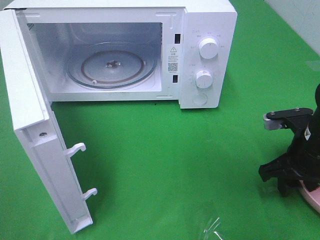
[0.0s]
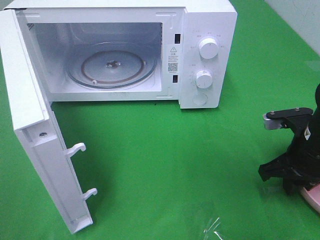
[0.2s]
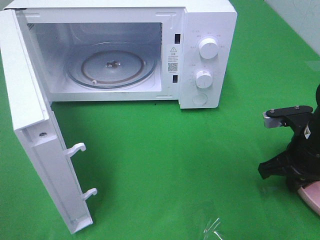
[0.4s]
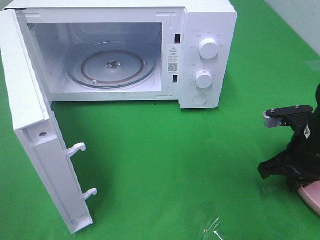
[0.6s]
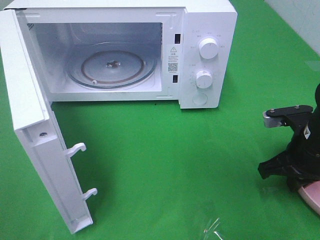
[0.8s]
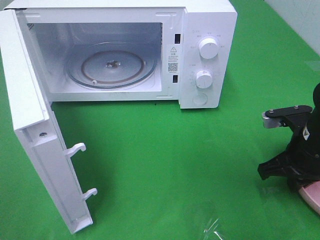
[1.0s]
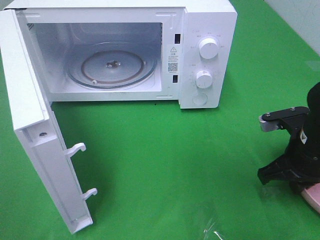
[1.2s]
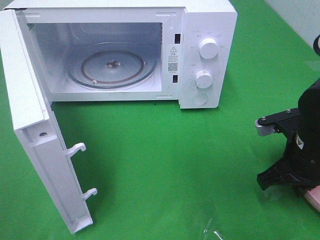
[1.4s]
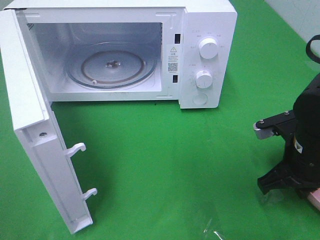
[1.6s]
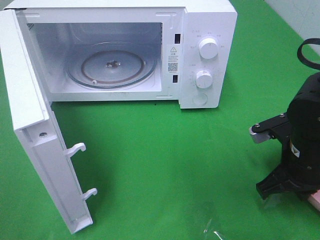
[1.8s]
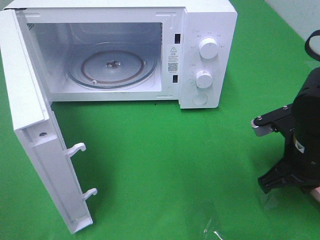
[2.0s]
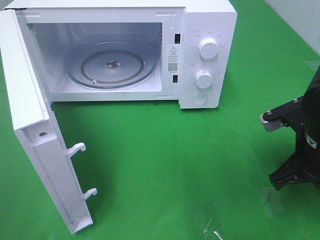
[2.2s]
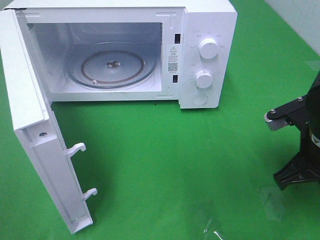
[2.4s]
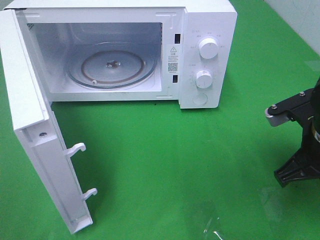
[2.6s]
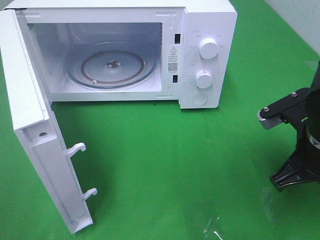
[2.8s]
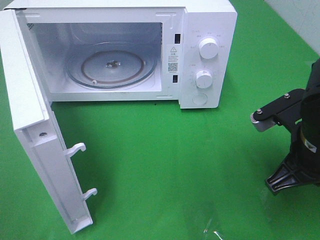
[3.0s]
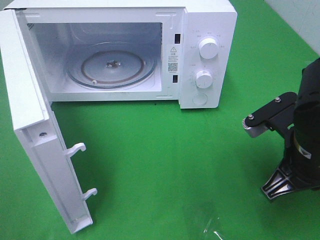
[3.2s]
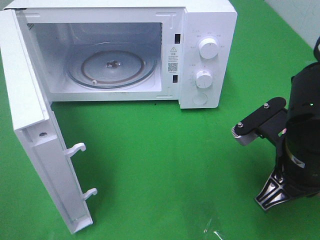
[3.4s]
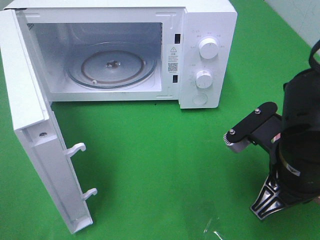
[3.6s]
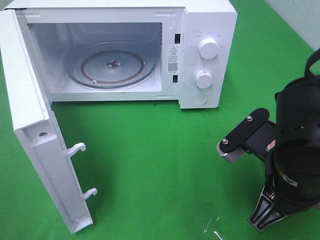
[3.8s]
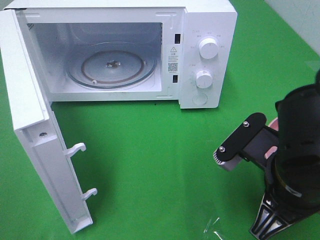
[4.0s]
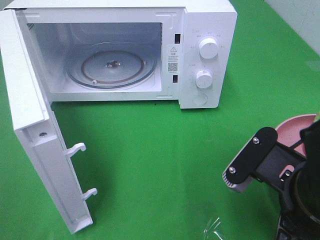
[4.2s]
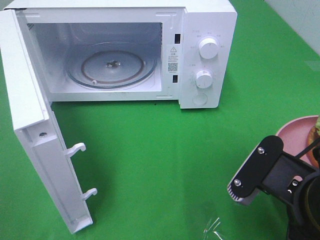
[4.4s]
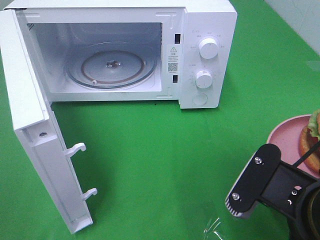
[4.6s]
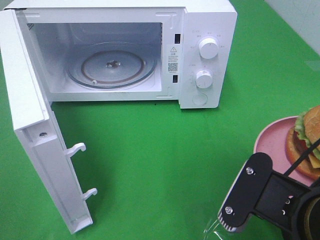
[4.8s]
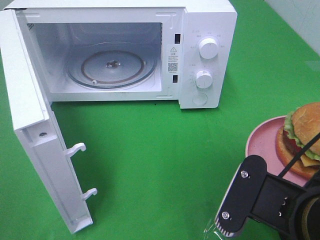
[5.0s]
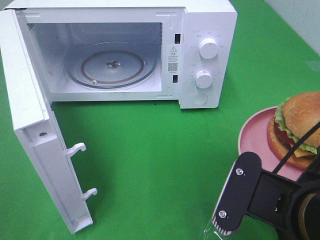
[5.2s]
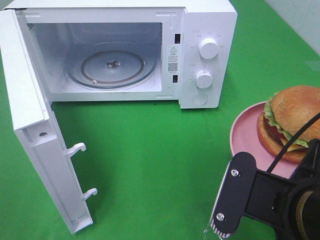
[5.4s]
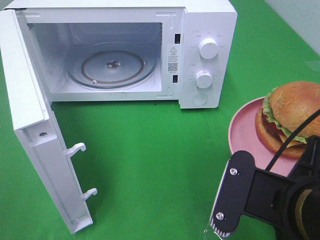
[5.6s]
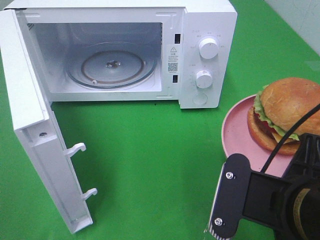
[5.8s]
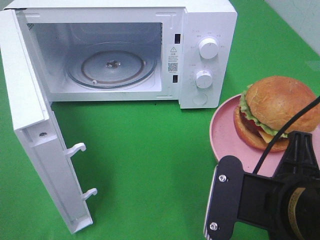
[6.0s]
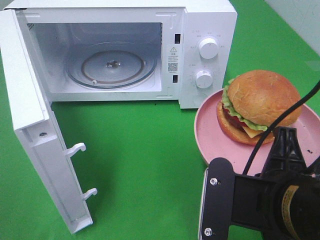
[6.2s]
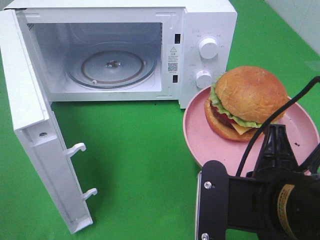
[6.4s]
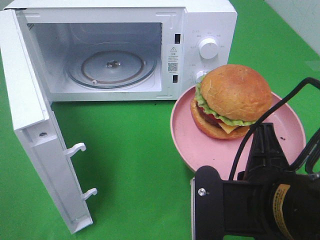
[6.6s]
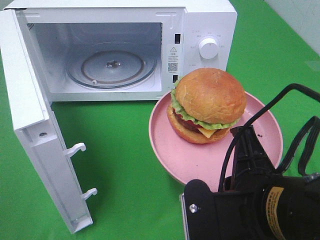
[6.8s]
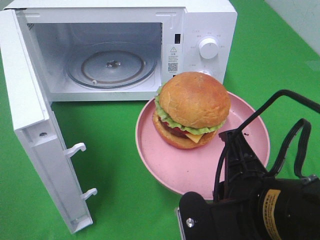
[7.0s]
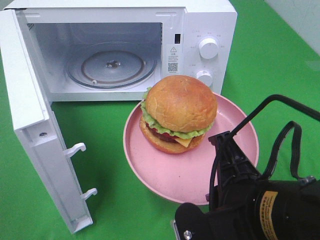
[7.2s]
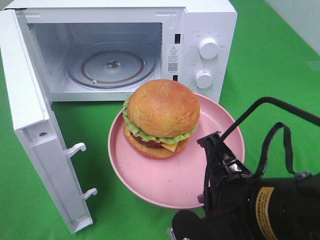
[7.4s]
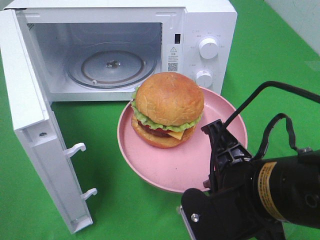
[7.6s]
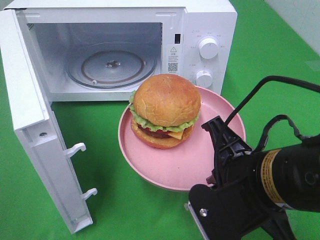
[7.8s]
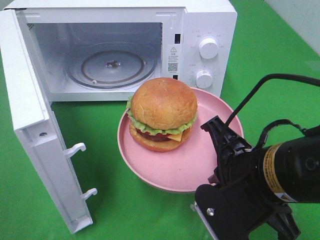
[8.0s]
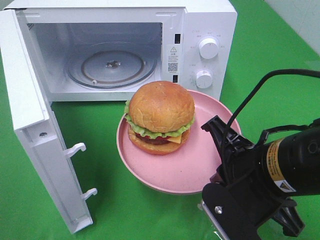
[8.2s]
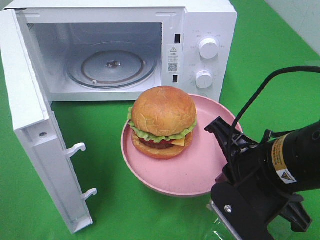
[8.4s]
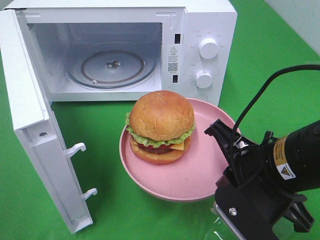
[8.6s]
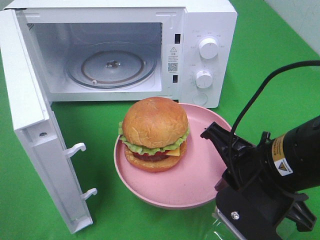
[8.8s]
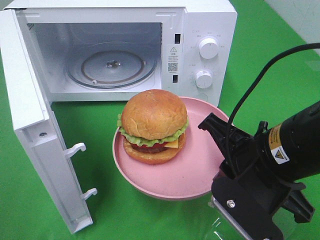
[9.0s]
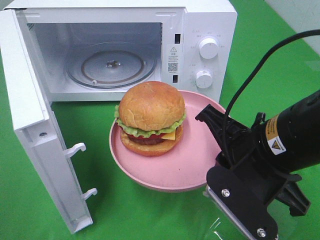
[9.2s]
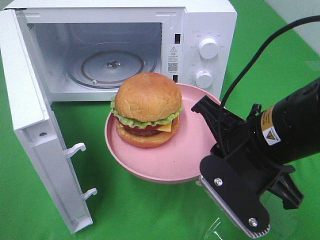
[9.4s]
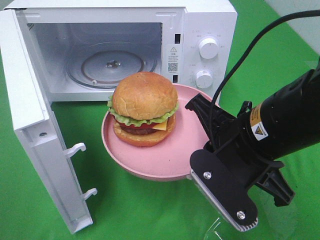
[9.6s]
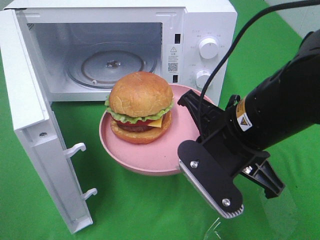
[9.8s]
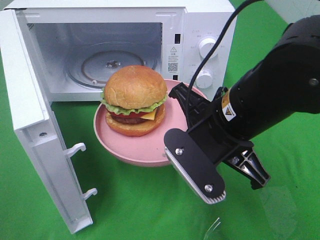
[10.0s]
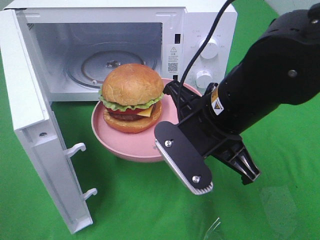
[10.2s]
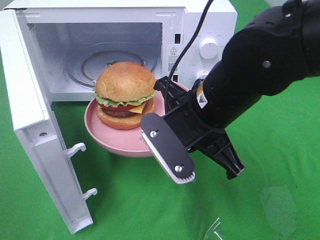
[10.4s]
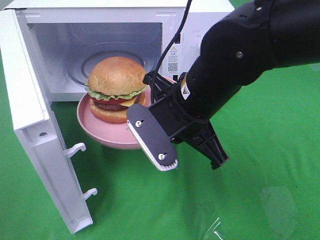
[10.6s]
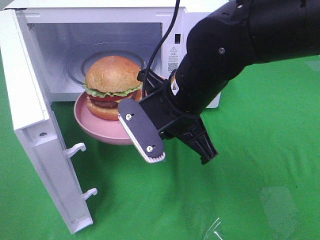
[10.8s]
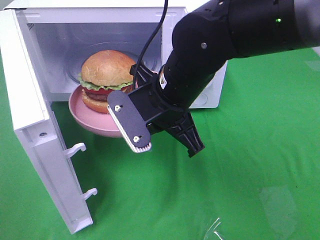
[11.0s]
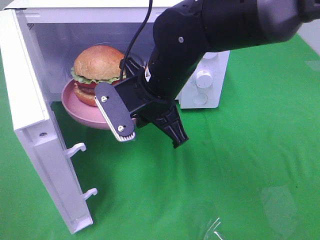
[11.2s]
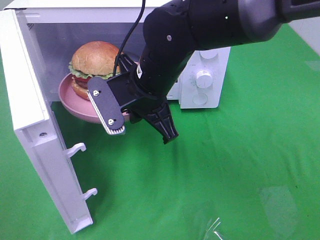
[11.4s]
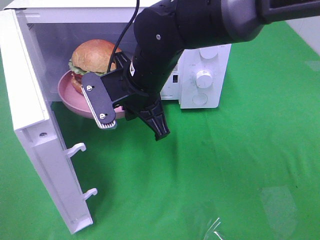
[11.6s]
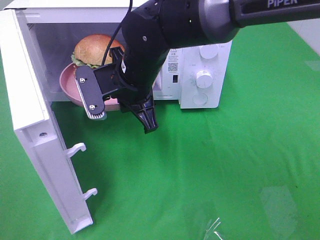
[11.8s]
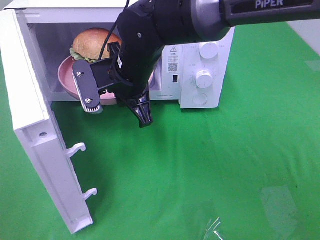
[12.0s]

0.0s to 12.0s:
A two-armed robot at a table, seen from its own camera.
Task of the whole recording: Heat the burger.
0.0s to 1.6s: The right gripper closes up.
1.6s to 3.0s: The right gripper travels upward by roughly 5 cm.
3.0s to 4.4s: The right gripper is displaced backward by roughly 10 cm.
7.6s to 9.0s: The right gripper changes place by some 5 cm.
9.0s to 10.4s: The right gripper goes roughly 10 cm to the left and forward.
10.4s to 12.0s: The right gripper goes about 15 cm forward and to the left.

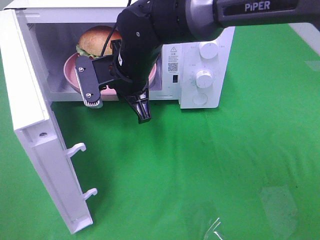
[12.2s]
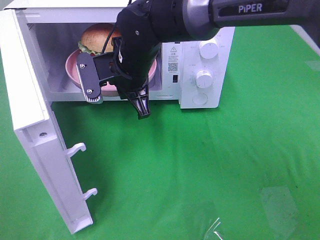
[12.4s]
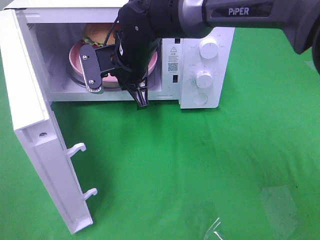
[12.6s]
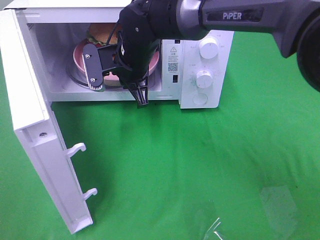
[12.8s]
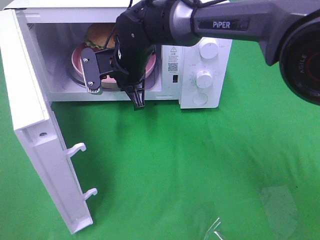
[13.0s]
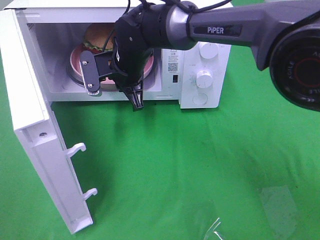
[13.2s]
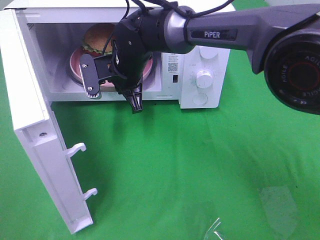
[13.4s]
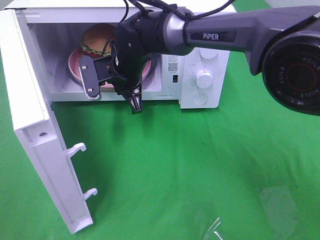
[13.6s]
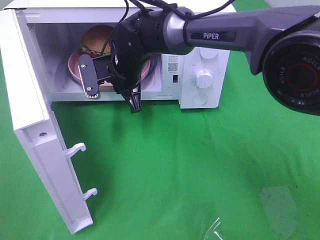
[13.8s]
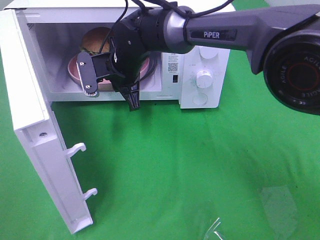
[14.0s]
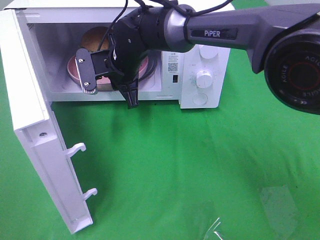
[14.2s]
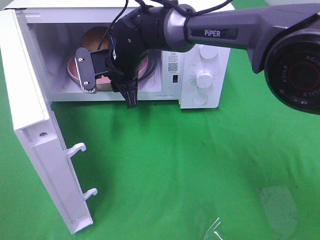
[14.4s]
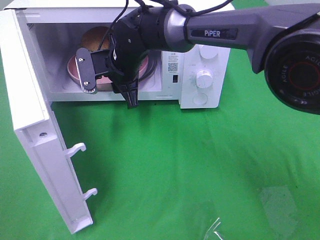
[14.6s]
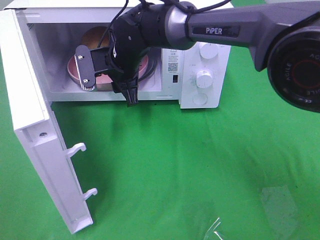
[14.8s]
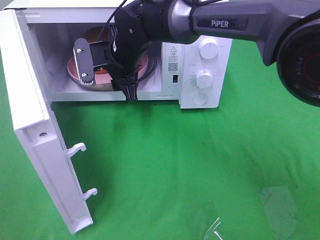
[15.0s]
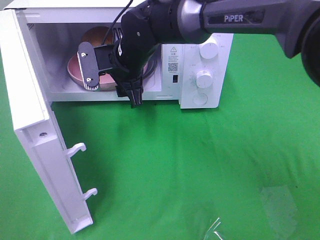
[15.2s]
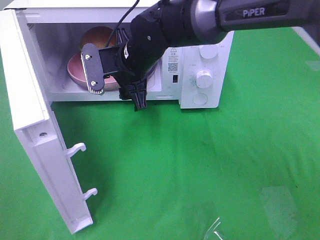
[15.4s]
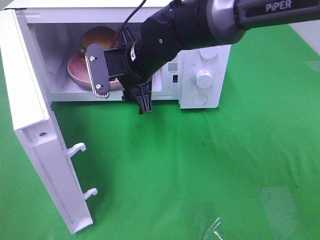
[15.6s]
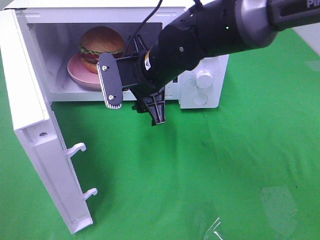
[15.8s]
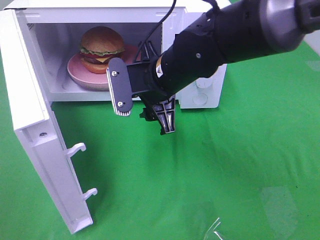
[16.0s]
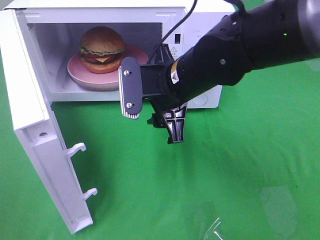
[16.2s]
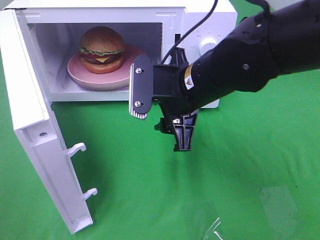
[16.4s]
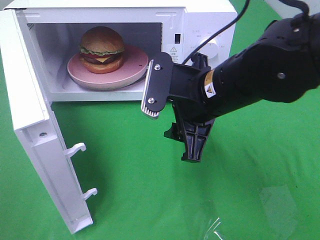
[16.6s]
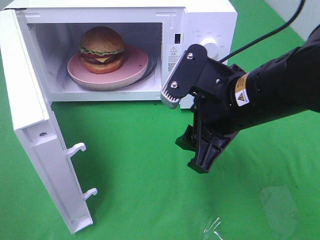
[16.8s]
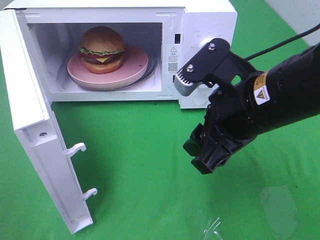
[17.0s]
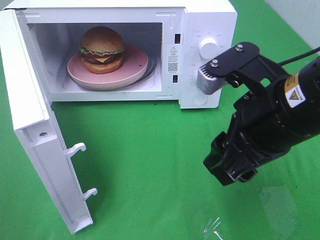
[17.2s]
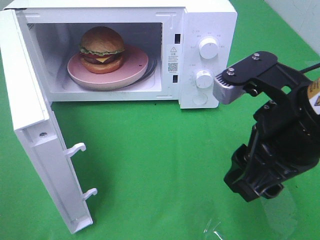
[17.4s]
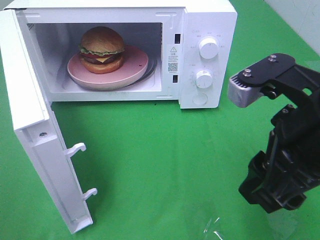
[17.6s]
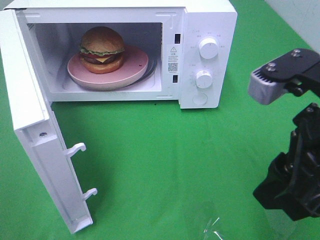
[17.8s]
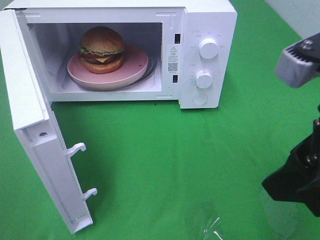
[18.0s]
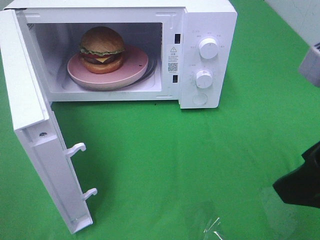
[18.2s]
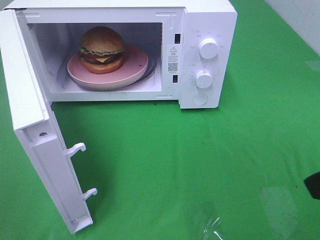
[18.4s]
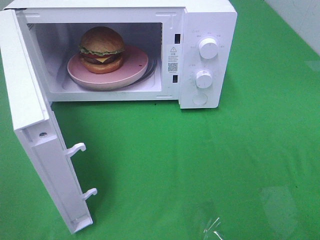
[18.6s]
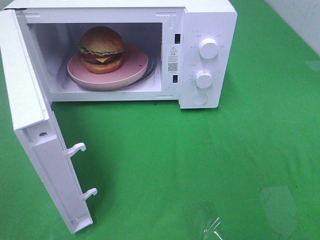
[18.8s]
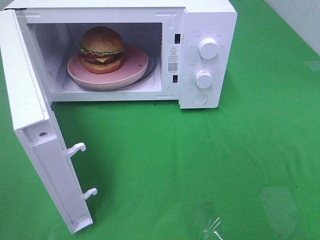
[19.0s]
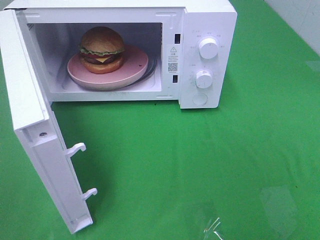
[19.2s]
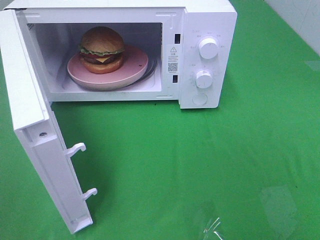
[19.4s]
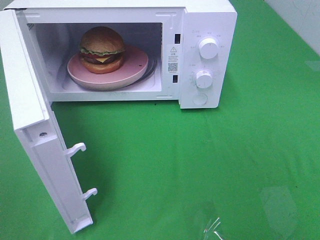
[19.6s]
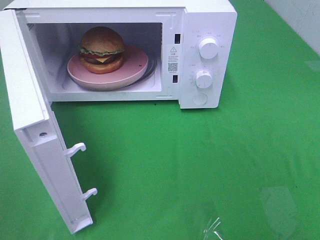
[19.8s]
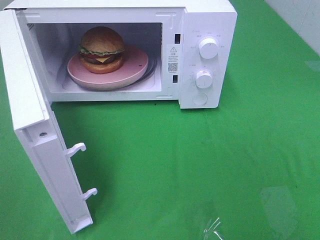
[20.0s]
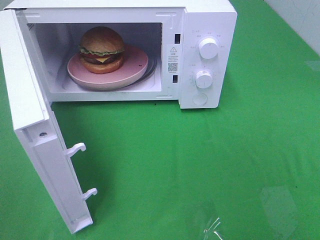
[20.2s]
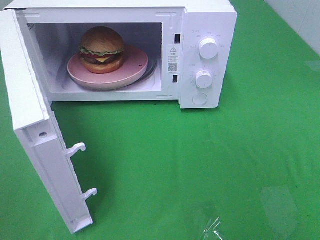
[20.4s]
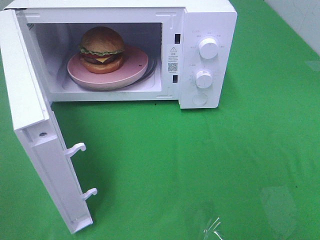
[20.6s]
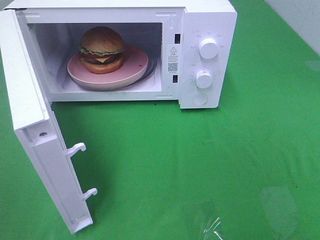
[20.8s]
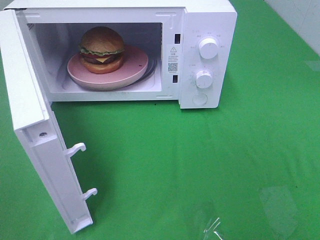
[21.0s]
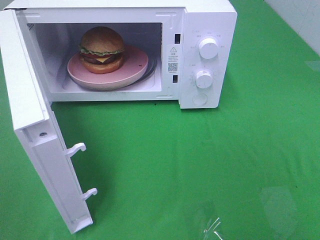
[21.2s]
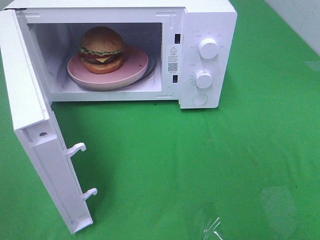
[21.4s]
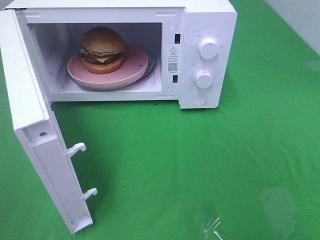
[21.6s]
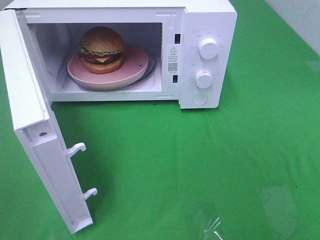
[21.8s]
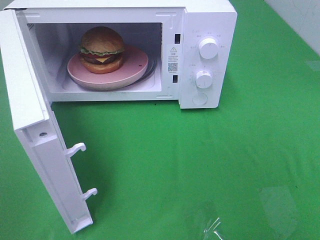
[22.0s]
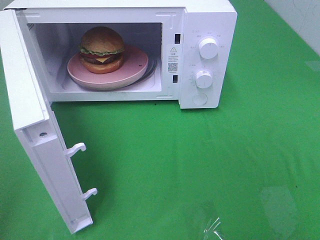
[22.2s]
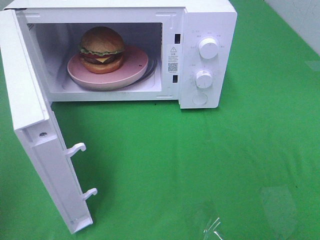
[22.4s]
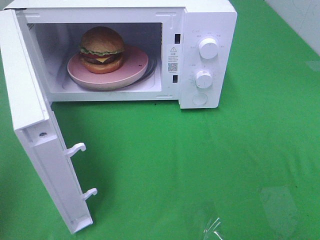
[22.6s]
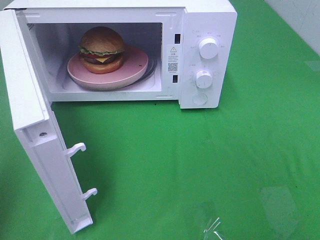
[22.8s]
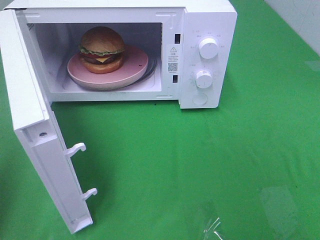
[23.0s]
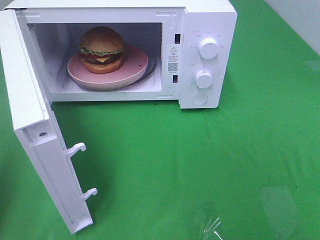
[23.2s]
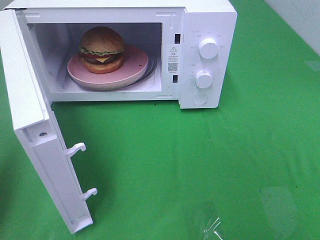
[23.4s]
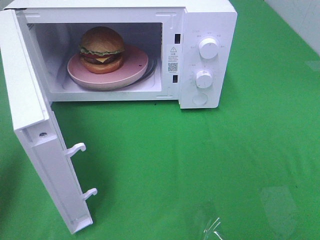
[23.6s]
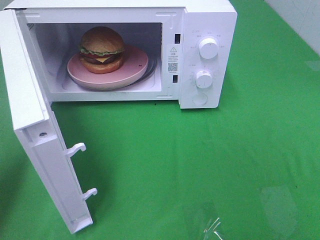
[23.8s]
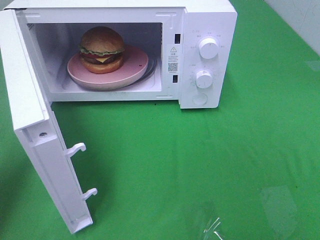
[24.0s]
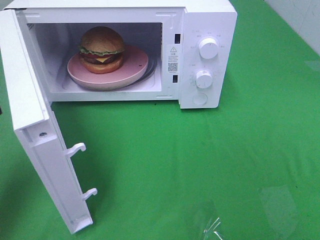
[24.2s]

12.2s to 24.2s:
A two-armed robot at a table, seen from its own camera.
Task of the whole recording: Heat the burger.
Step, 12.2s to 15.2s: Right hand: place the plate in the microwave.
12.2s to 13.8s: The right gripper travels forward by about 5 cm.
13.8s to 15.2s: The right gripper opens.
15.2s to 16.6s: The right gripper goes some 20 cm backward and to the right.
16.6s to 18.2s: The right gripper goes some 20 cm backward, to the right and upward.
18.2s to 19.8s: The right gripper shifts roughly 15 cm backward and to the right.
19.8s to 21.2s: Both grippers stay put.
22.6s to 24.2s: The left gripper moves downward and forward, some 15 cm.
